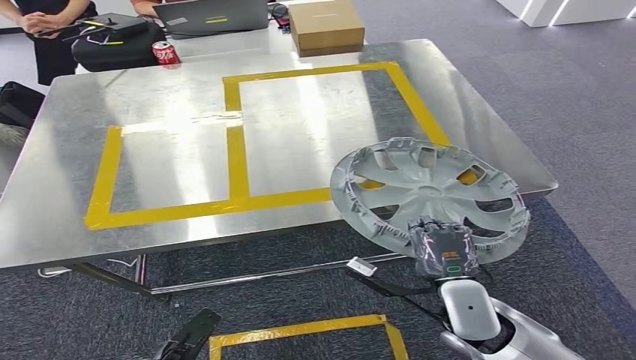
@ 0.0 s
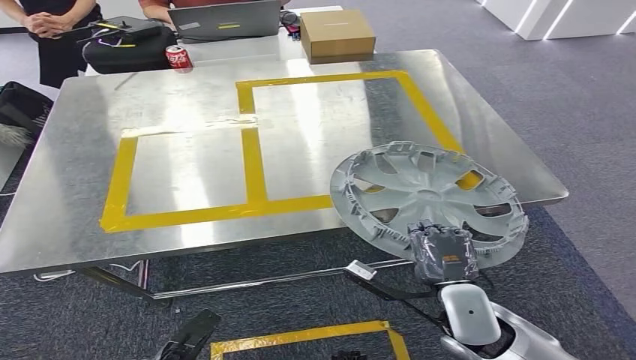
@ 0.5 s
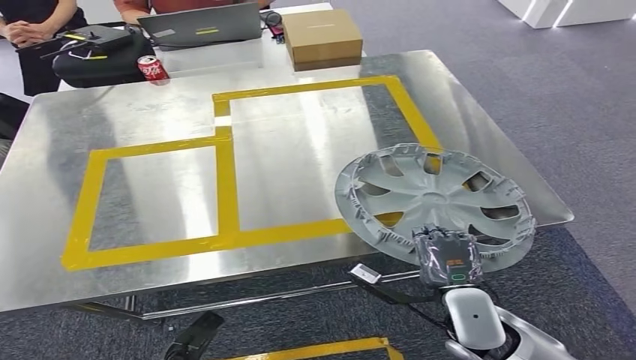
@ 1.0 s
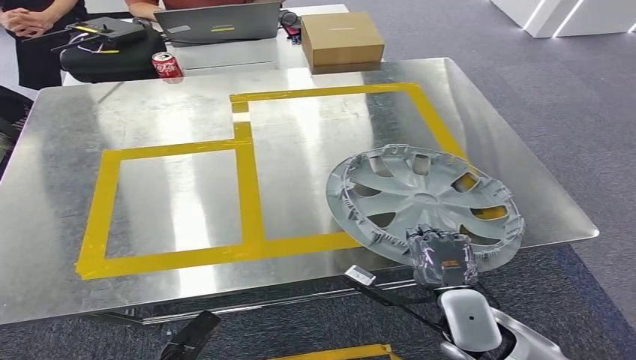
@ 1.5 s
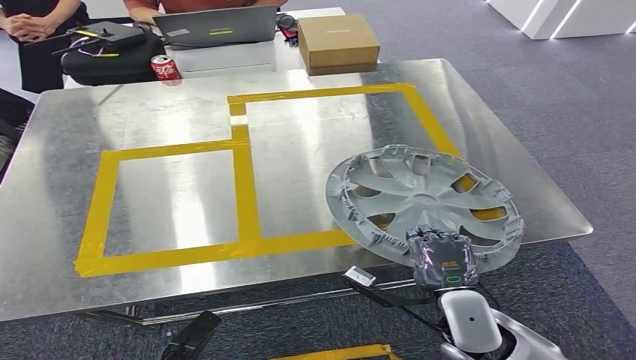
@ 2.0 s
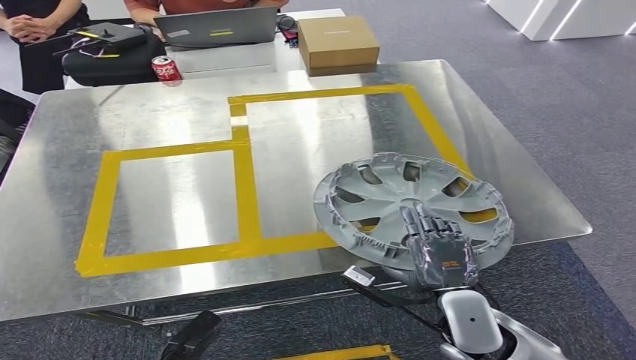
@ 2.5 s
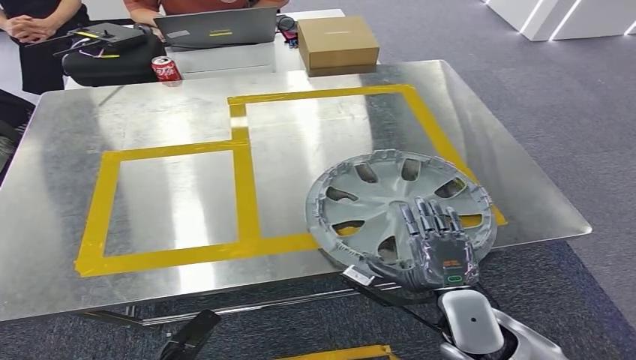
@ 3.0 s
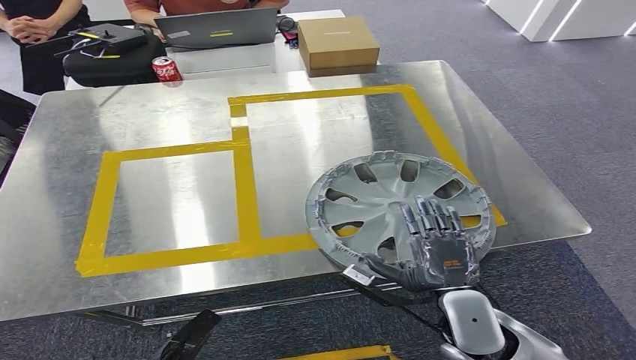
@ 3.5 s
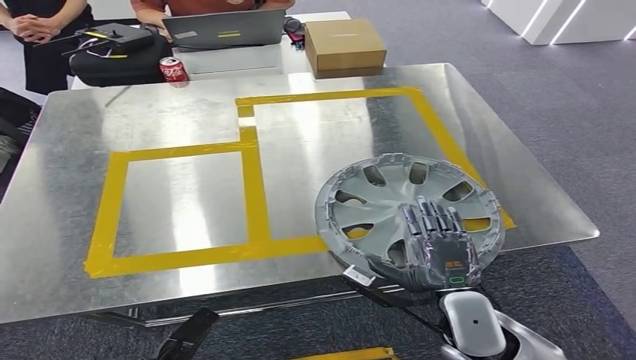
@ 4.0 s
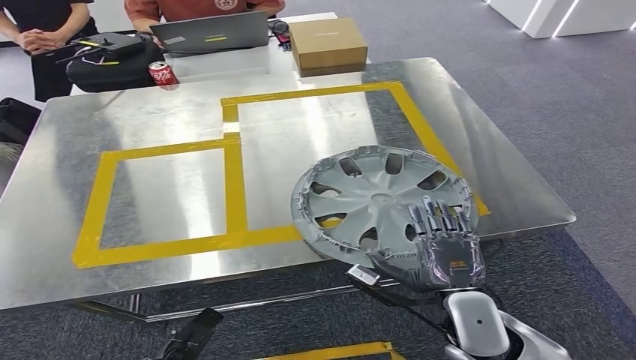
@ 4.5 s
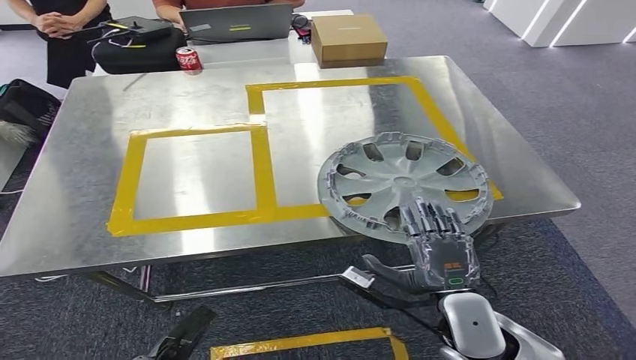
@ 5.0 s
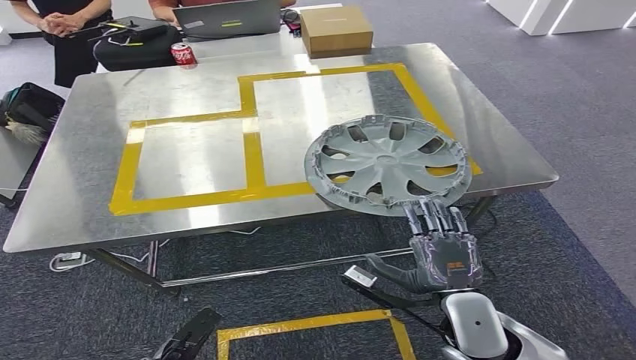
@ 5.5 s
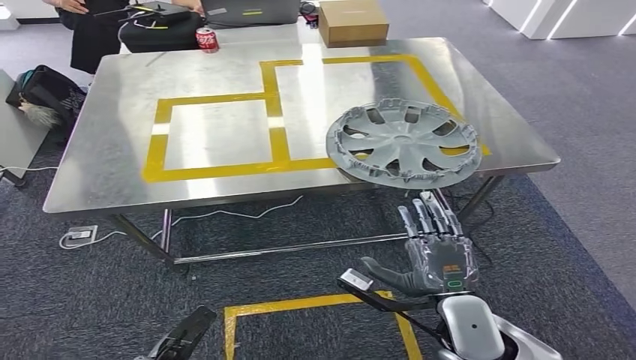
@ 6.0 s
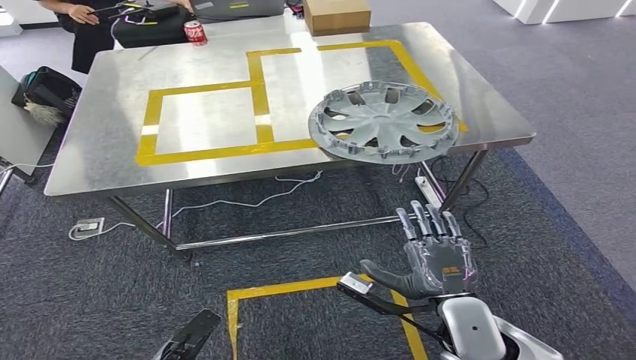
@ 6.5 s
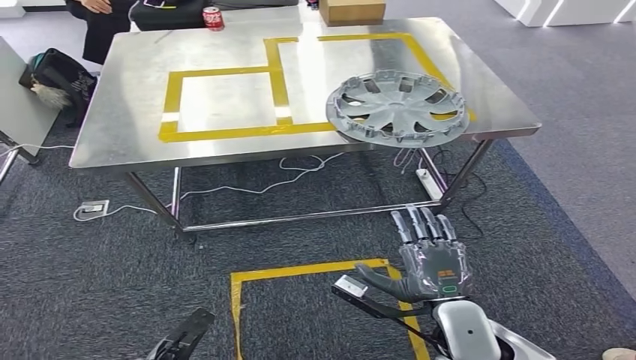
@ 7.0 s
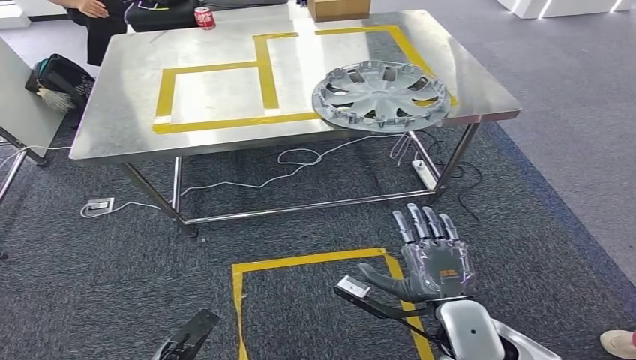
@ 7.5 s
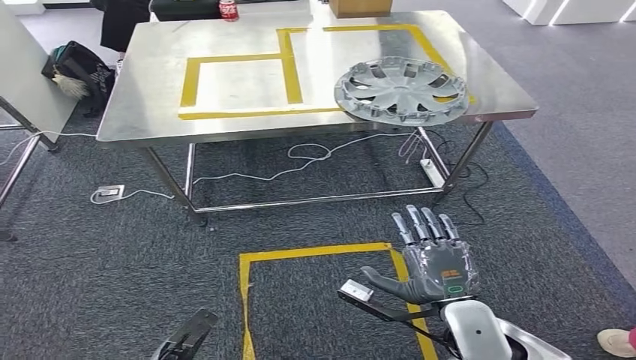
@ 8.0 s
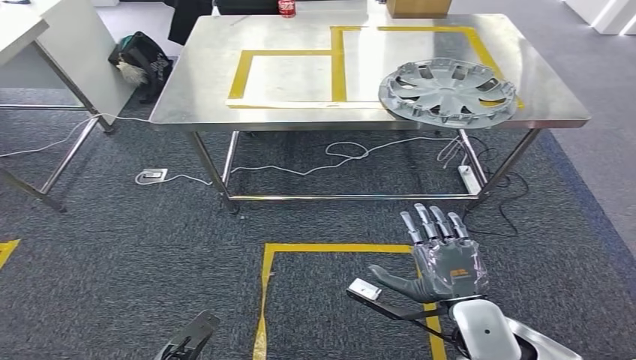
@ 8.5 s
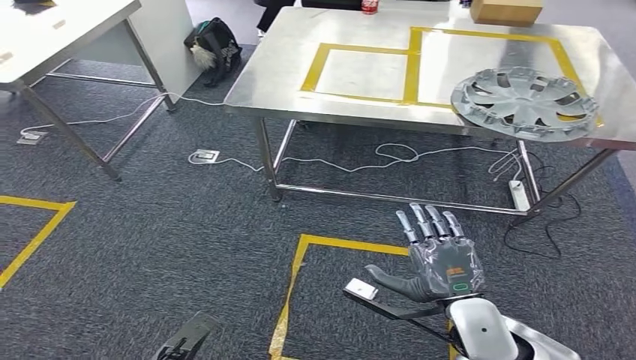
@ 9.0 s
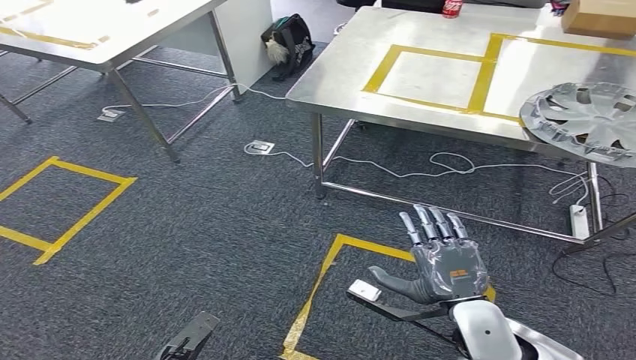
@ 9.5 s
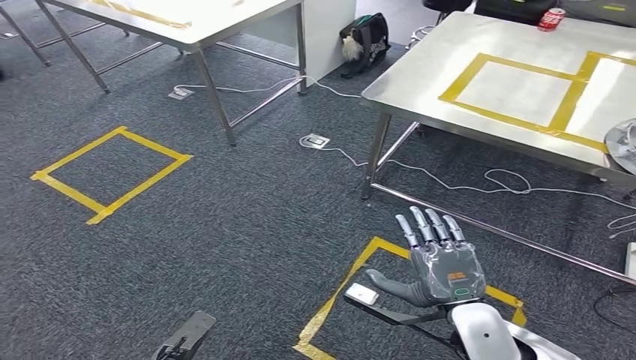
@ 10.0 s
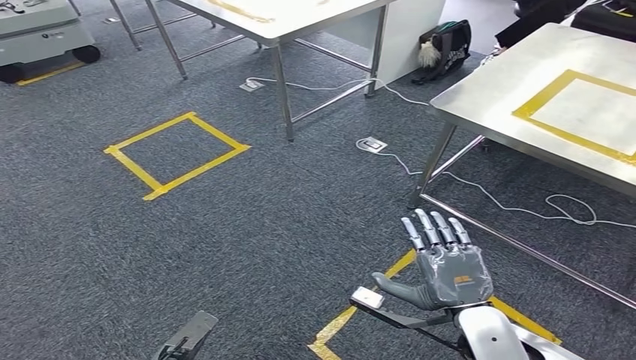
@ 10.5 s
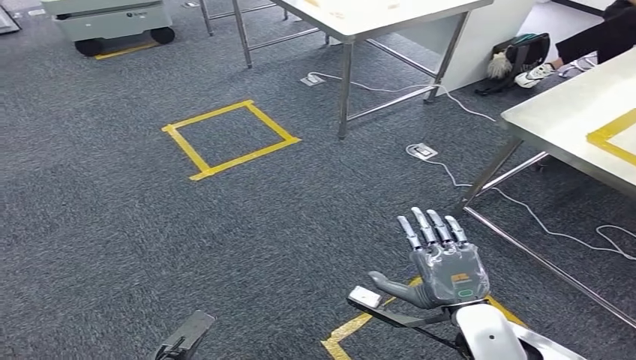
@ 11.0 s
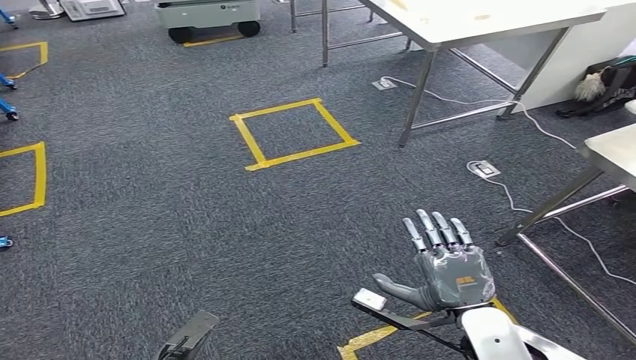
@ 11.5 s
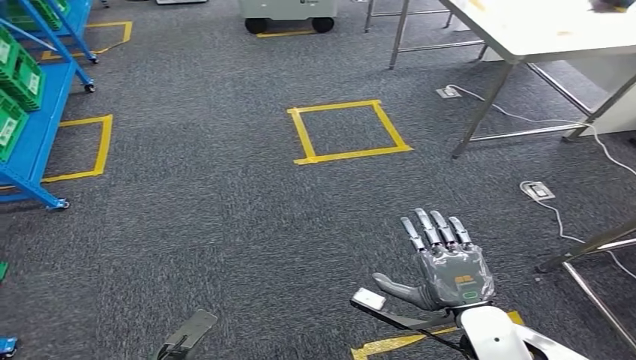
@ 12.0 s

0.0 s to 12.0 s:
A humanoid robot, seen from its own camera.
Step, 0.0 to 5.0 s: Insert the small component into the corresponding slot on the workbench.
2.0 to 4.0 s: Both hands stay put.

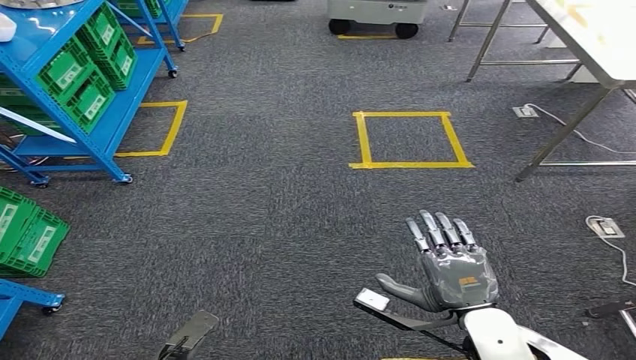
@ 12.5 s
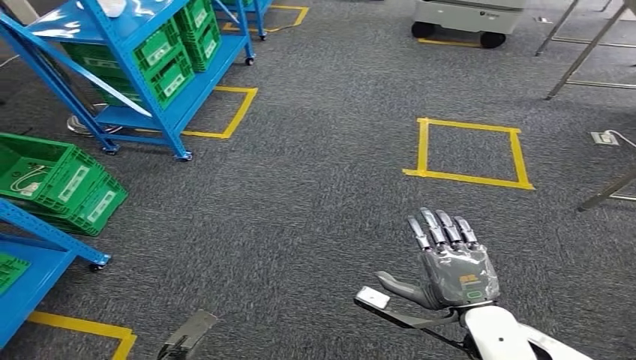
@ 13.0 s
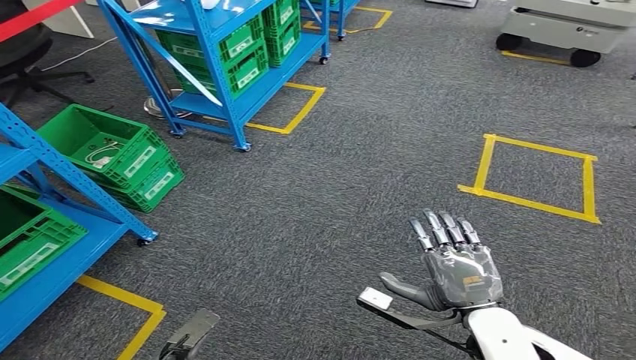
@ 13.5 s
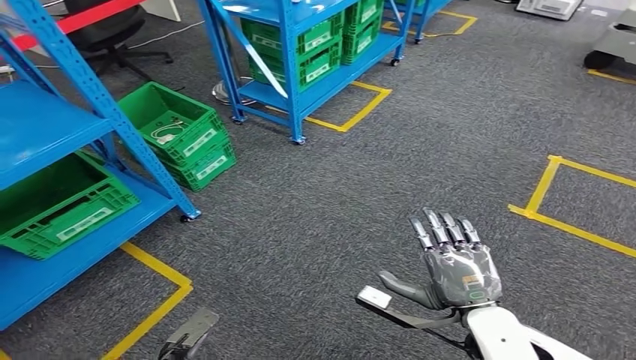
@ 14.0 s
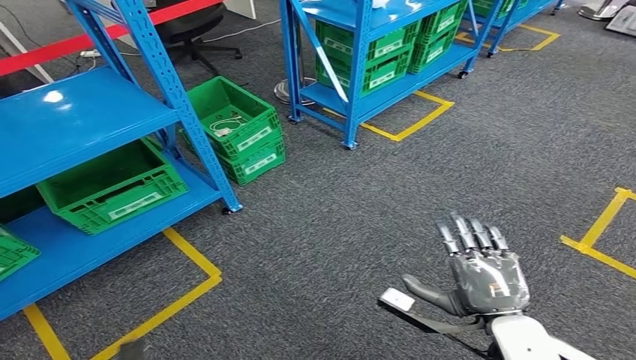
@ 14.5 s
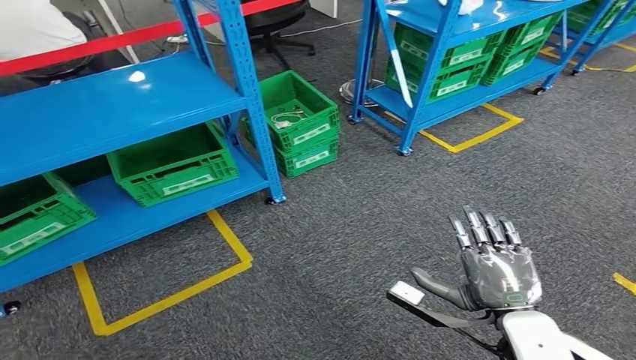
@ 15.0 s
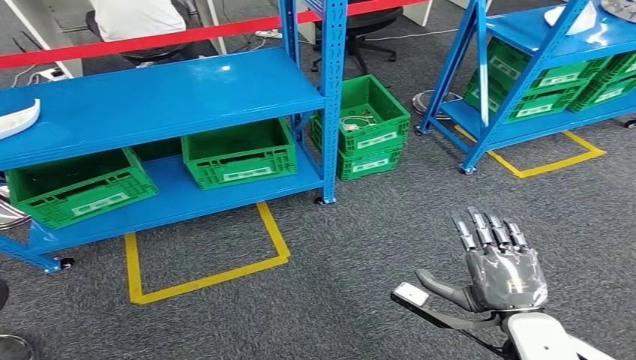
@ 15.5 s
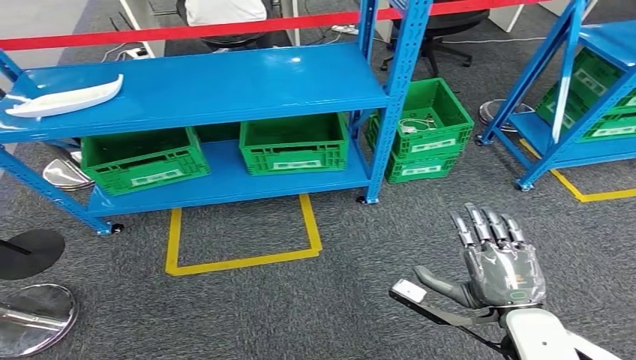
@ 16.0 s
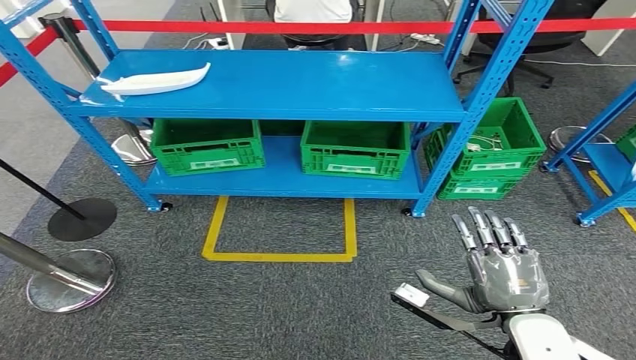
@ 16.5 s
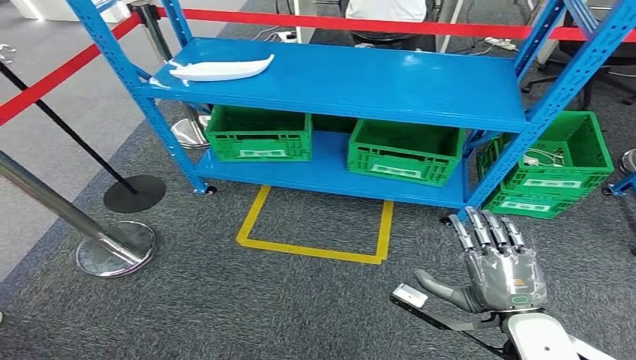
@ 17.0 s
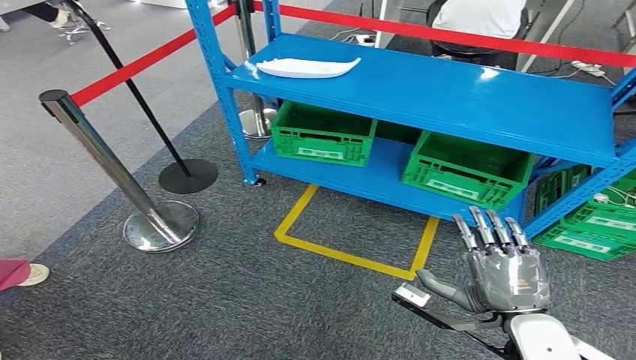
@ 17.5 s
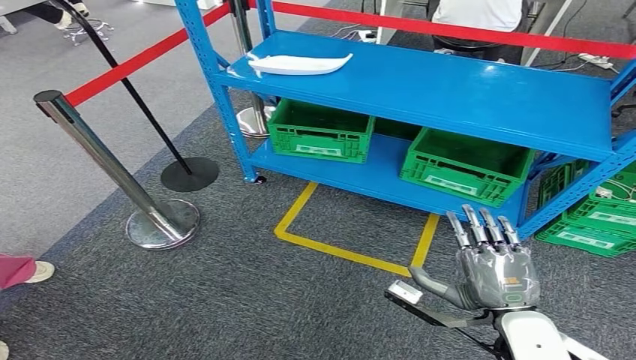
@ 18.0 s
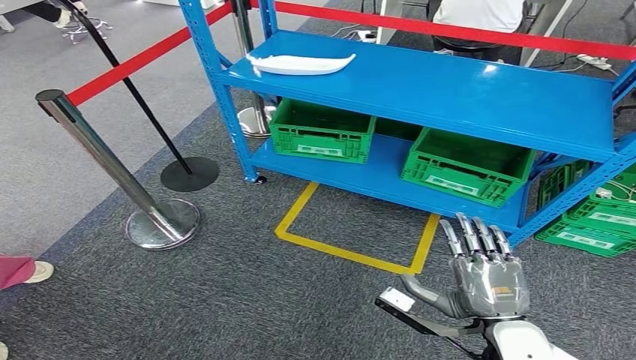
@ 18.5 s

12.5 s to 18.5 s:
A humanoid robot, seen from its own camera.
Step, 12.5 to 18.5 s: Return to the initial position at the workbench.
